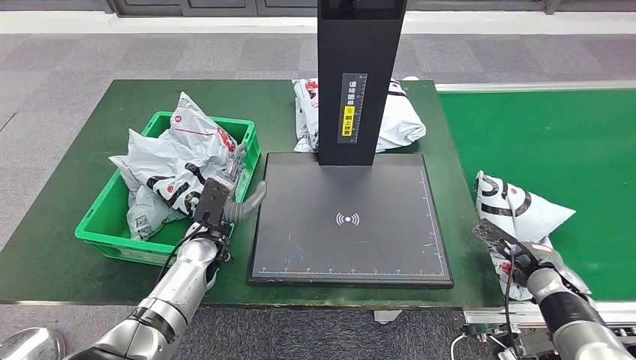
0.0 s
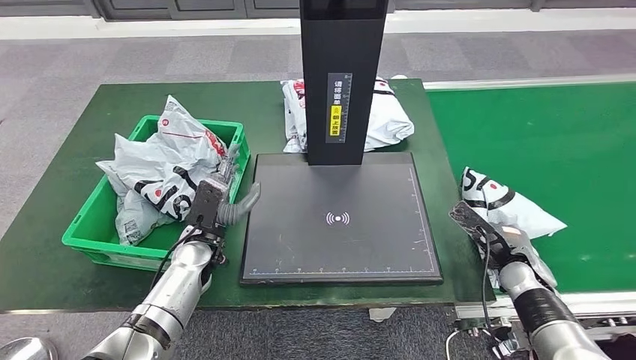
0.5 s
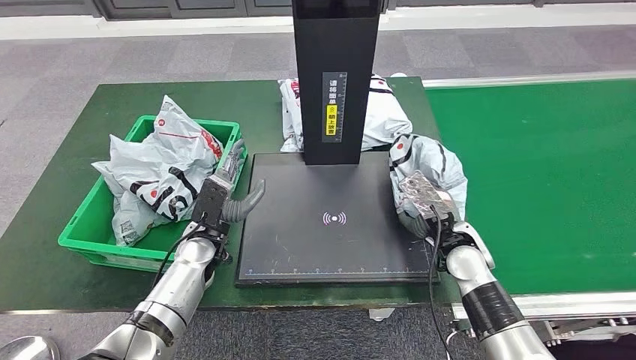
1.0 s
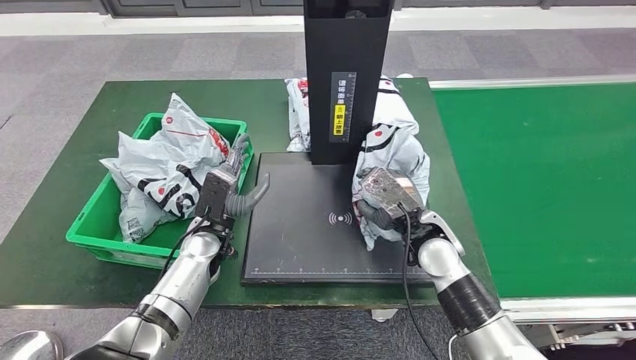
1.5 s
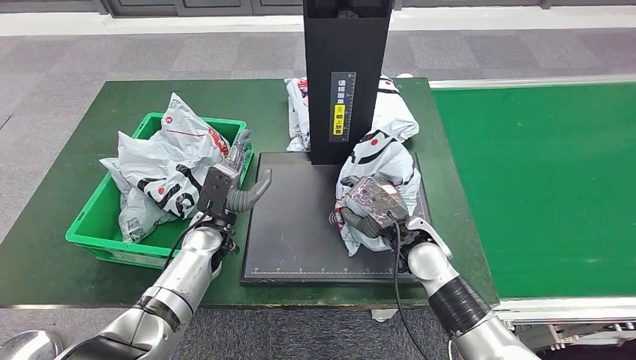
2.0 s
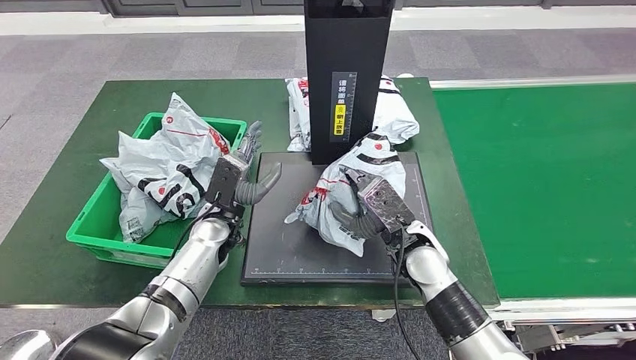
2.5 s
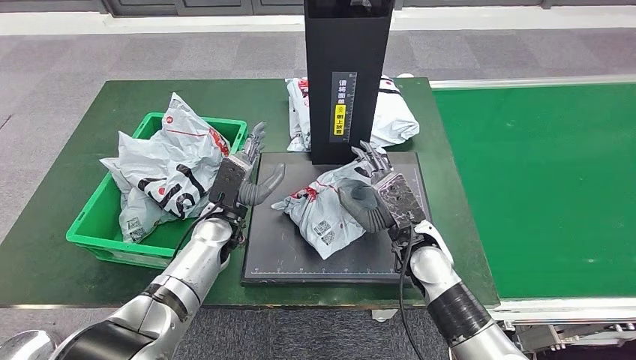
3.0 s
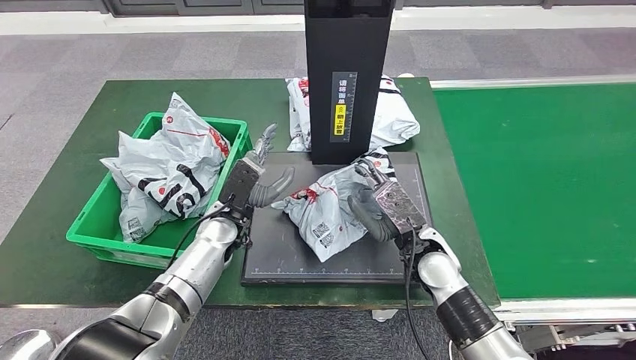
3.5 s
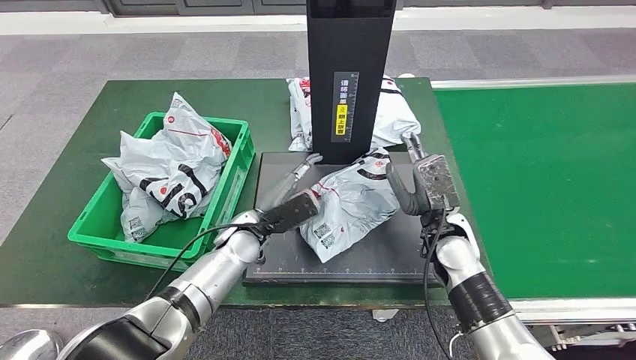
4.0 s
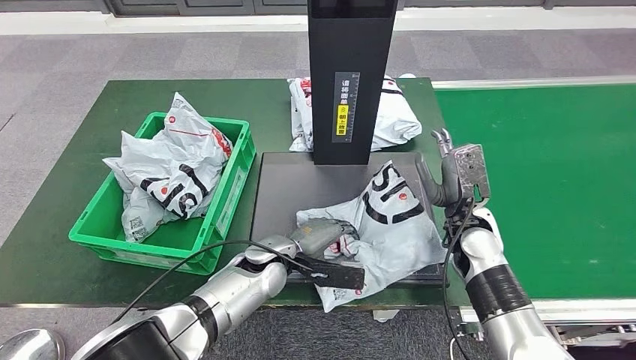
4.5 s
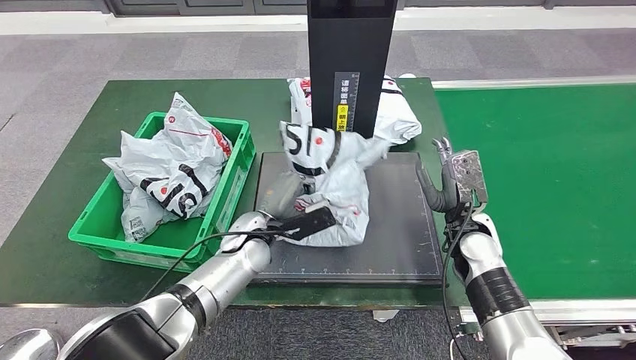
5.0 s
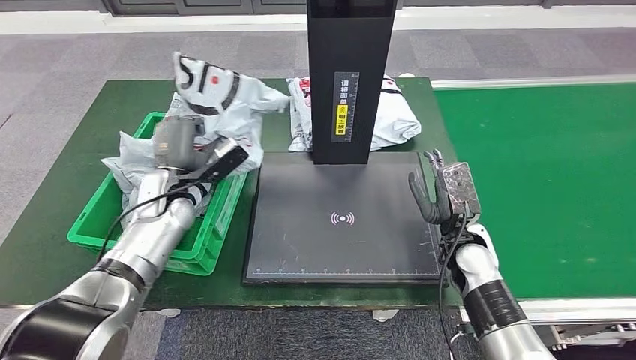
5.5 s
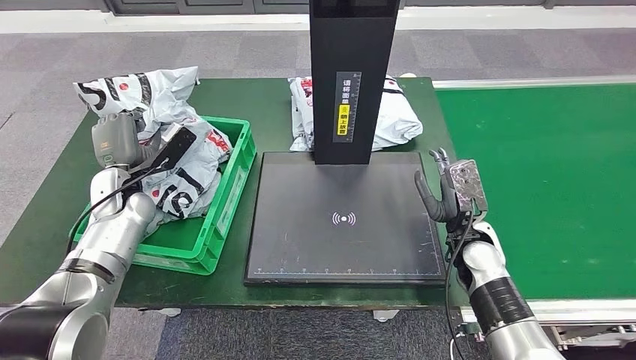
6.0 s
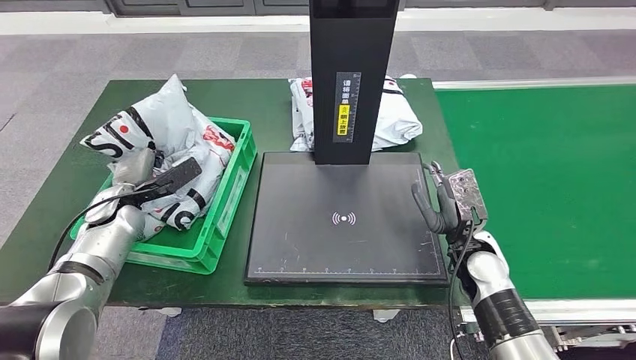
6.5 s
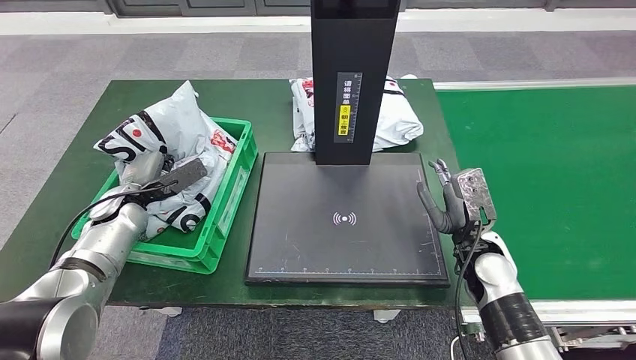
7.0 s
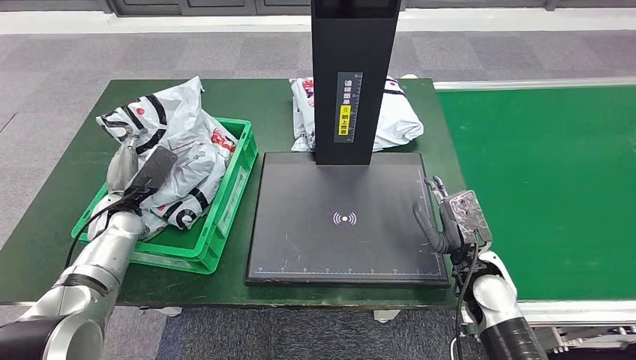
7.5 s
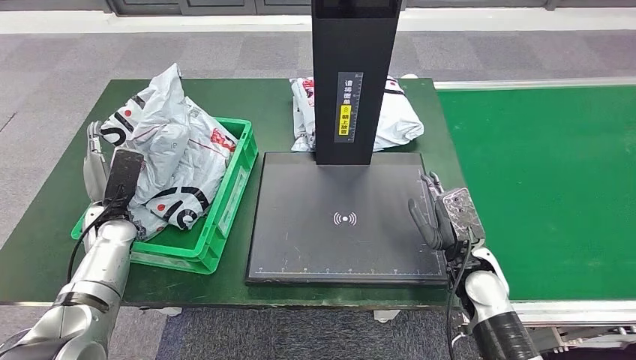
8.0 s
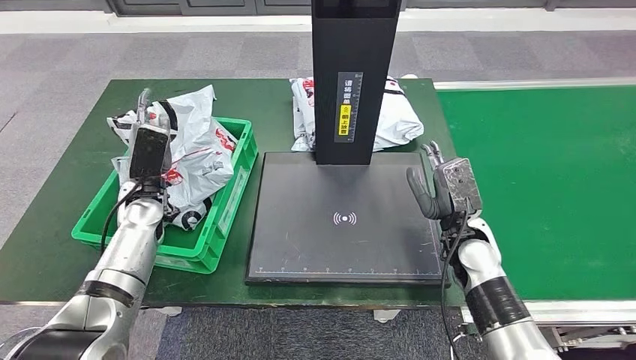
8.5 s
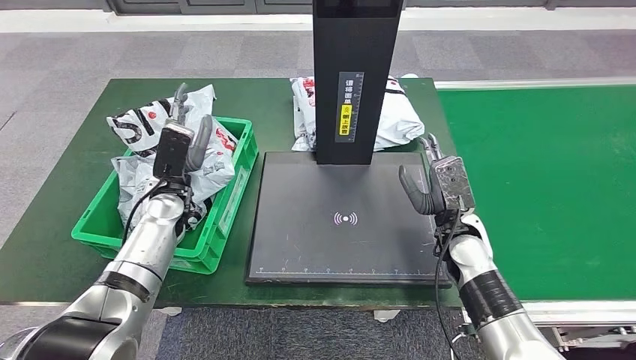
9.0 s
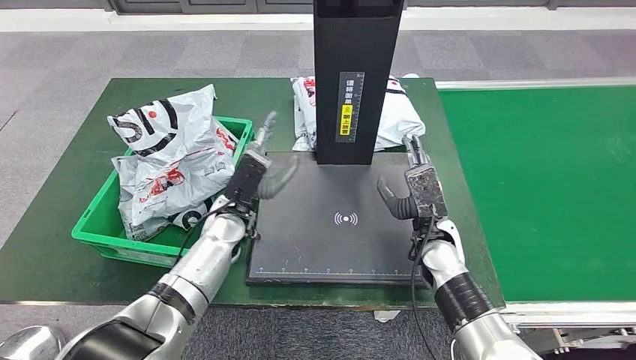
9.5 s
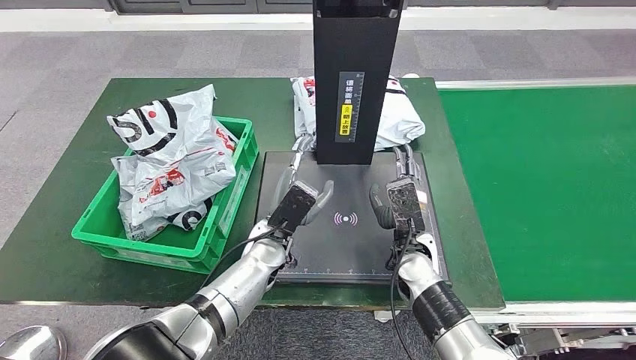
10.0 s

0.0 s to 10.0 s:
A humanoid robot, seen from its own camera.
Step, 1.0 to 4.5 s: Place the parcel onto the inbound machine.
Step, 5.0 to 5.5 s: Pick up the parcel from the inbound machine.
Step, 6.0 to 10.0 s: Place the parcel into the delivery box.
6.0 to 8.0 s: The left hand is displaced downward by about 5 cm.

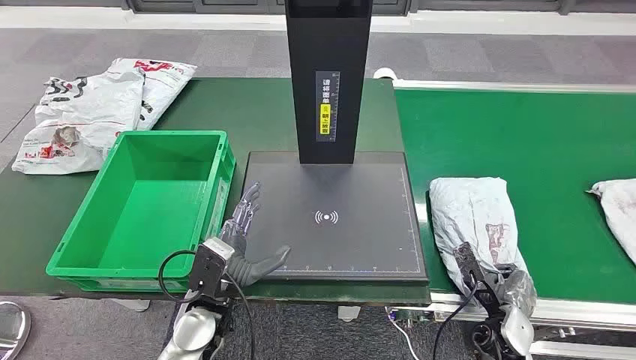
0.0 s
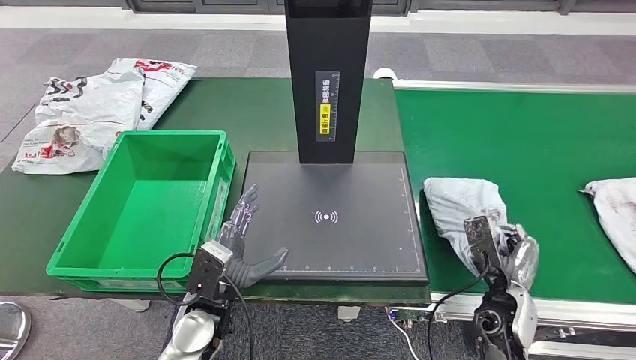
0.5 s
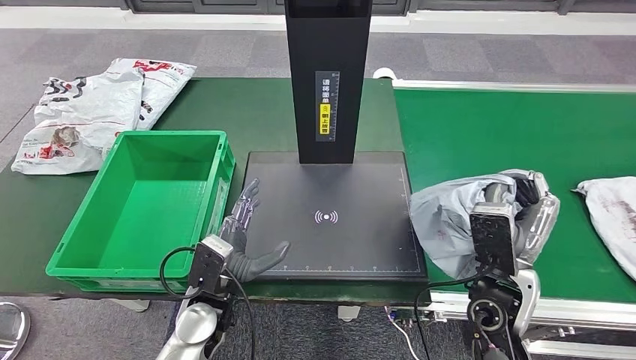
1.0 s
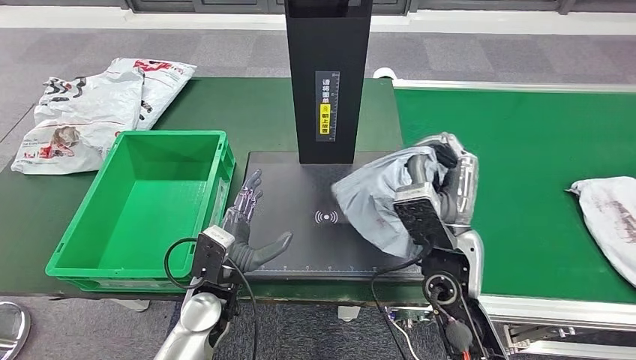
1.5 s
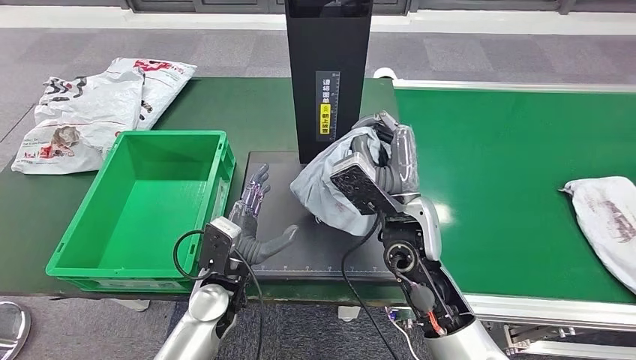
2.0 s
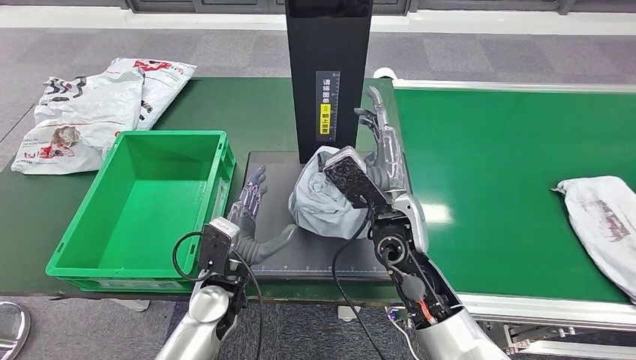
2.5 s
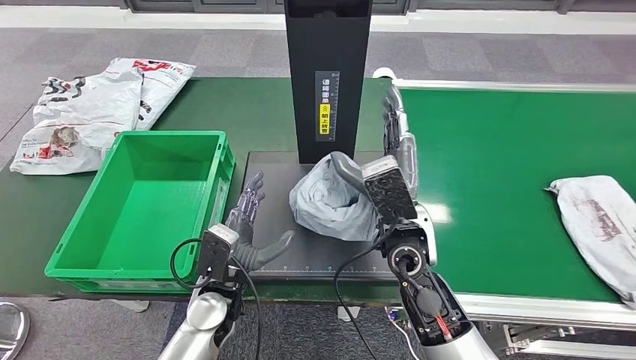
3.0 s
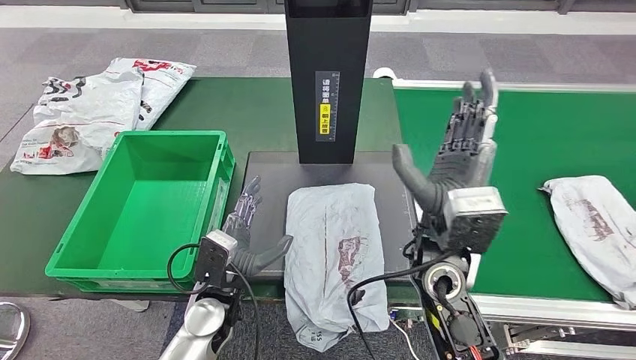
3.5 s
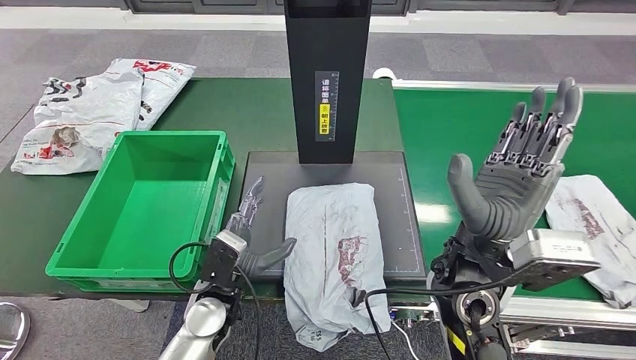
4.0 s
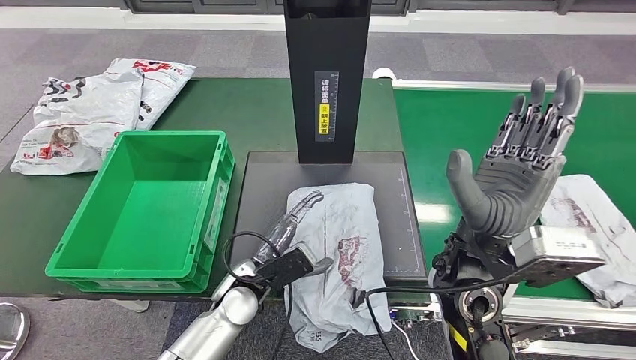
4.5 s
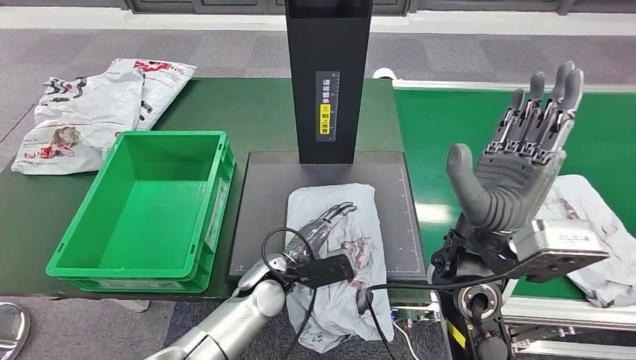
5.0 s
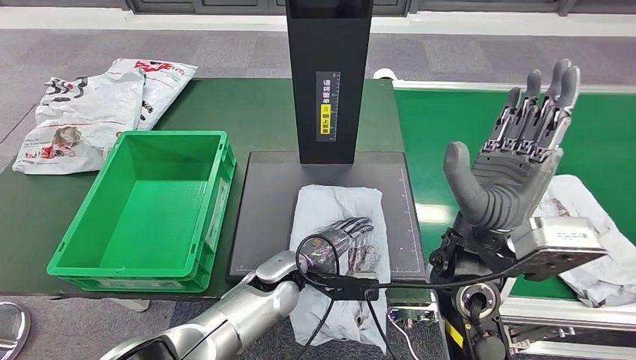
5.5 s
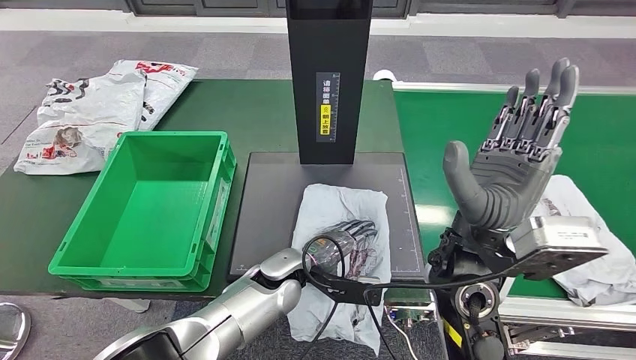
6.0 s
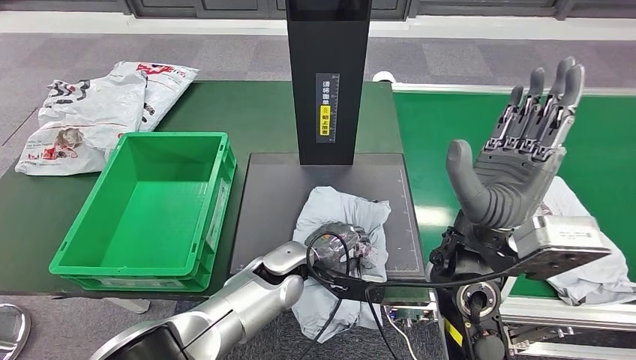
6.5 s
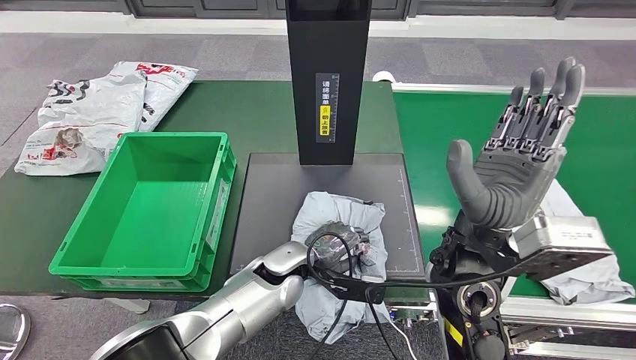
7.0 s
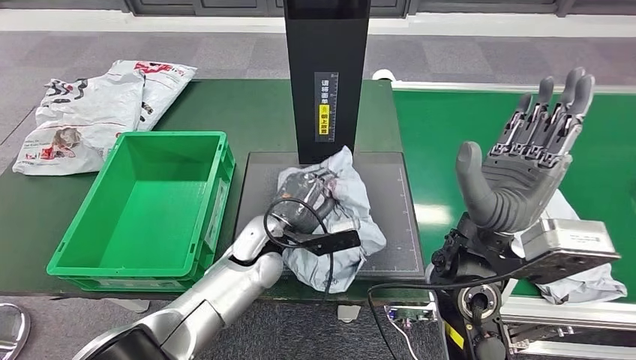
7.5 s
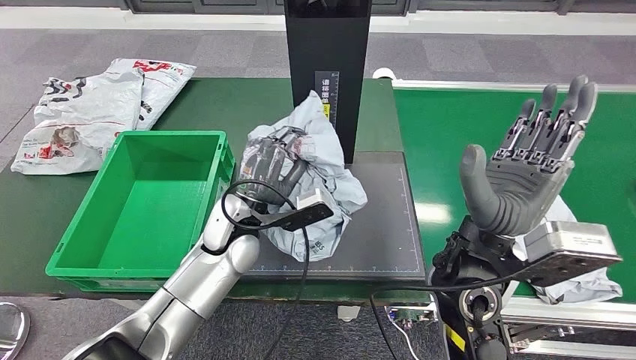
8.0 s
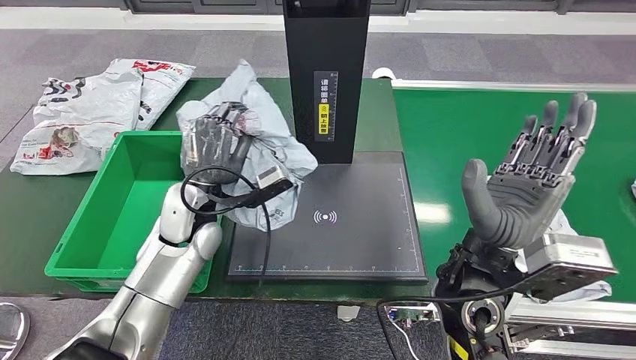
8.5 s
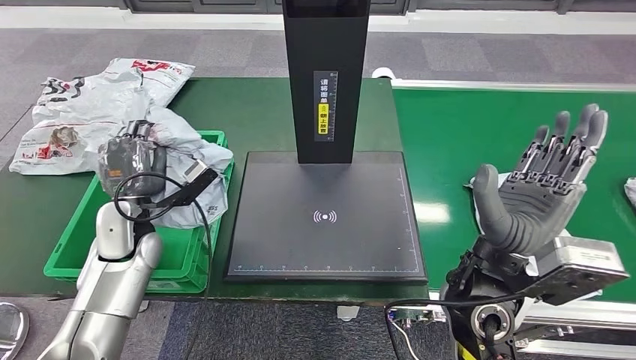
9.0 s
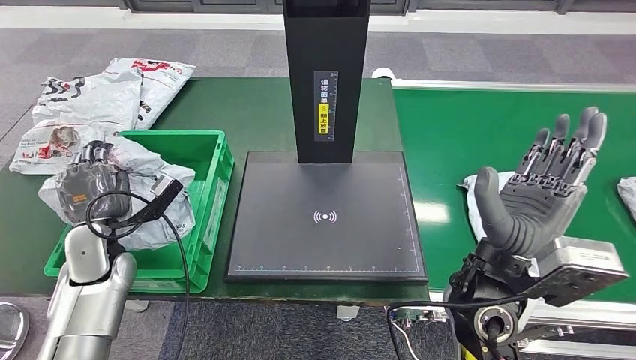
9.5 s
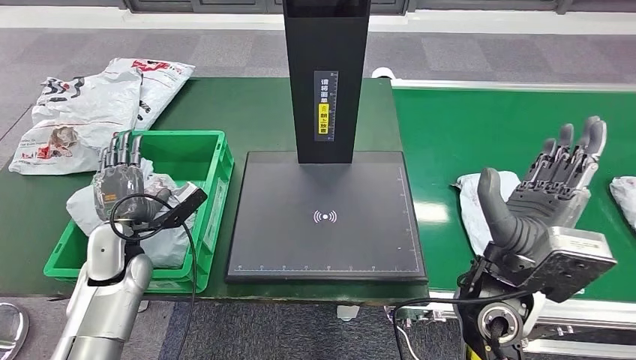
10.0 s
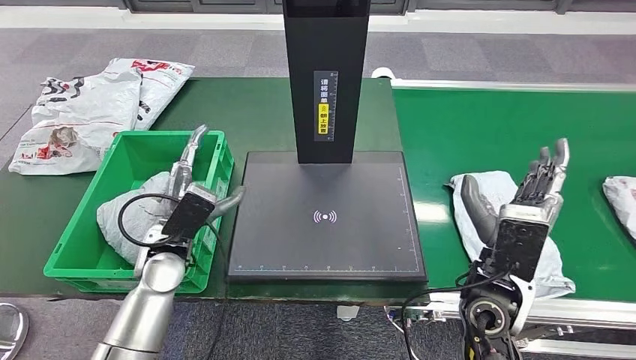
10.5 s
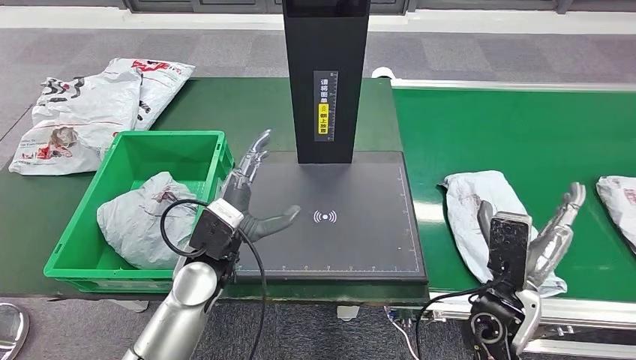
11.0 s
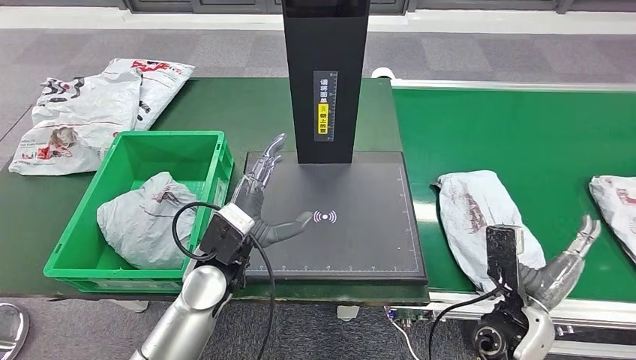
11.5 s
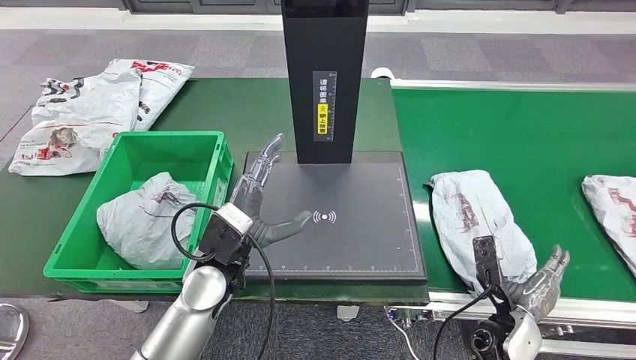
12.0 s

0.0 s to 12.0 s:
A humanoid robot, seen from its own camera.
Step, 0.0 to 1.0 s: Take the parcel off the conveyor belt.
Step, 1.5 to 4.5 s: Place the parcel onto the inbound machine.
Step, 5.5 to 7.5 s: Pick up the parcel from the inbound machine.
Step, 9.0 to 10.5 s: Put the parcel inside the courier box.
